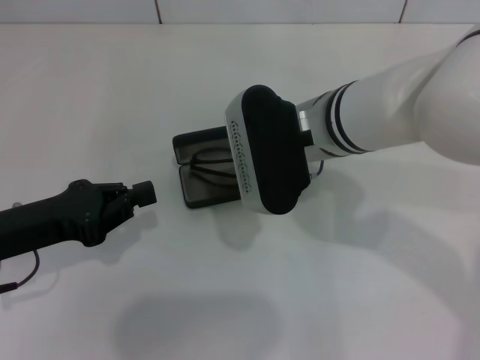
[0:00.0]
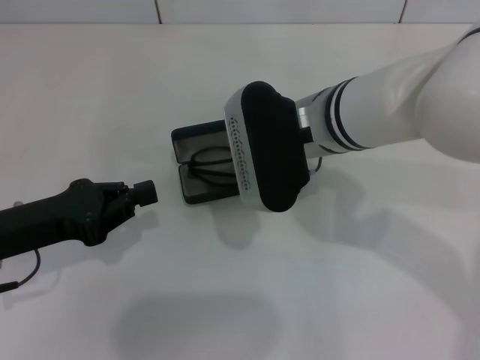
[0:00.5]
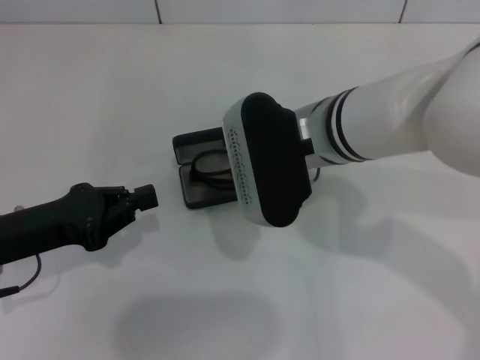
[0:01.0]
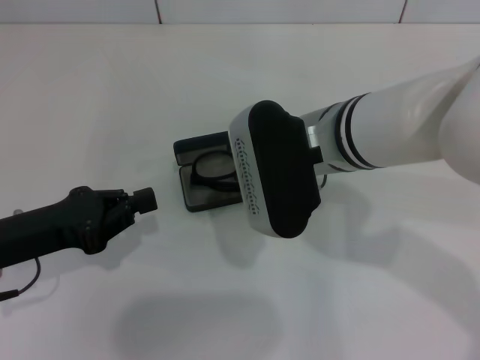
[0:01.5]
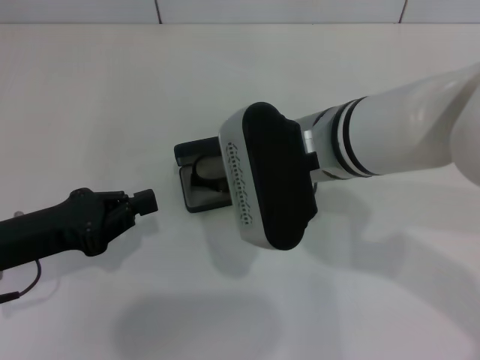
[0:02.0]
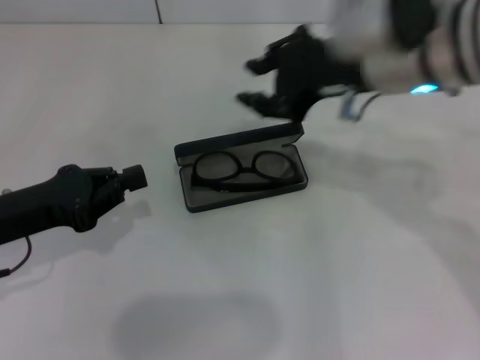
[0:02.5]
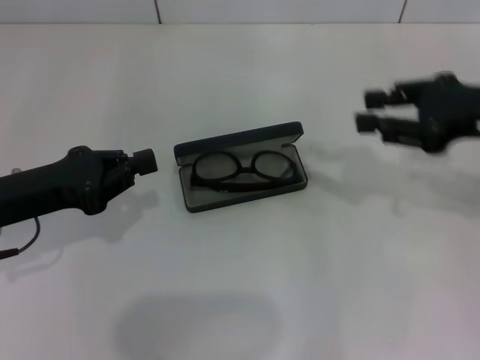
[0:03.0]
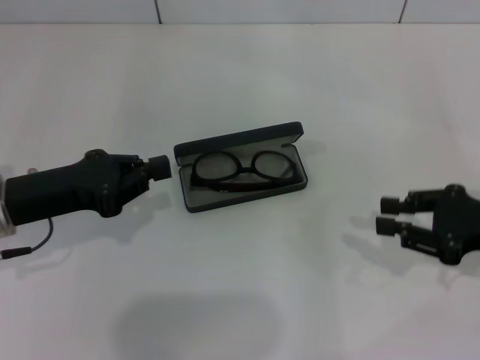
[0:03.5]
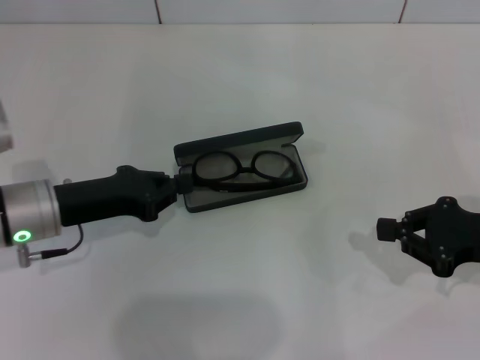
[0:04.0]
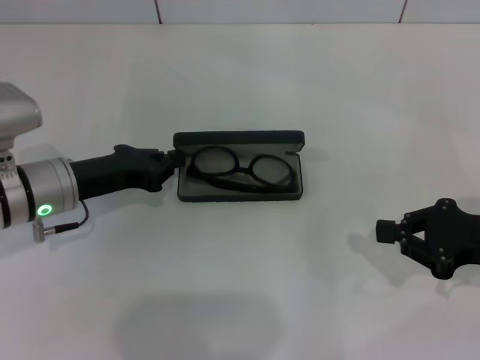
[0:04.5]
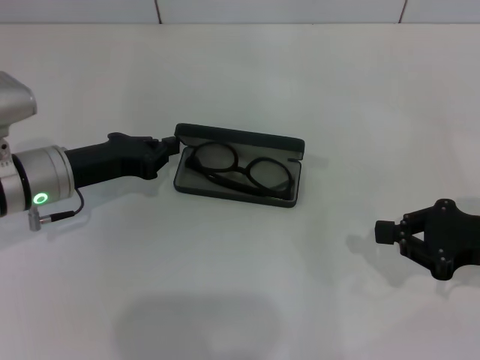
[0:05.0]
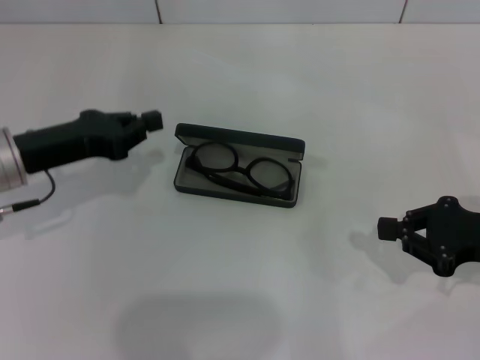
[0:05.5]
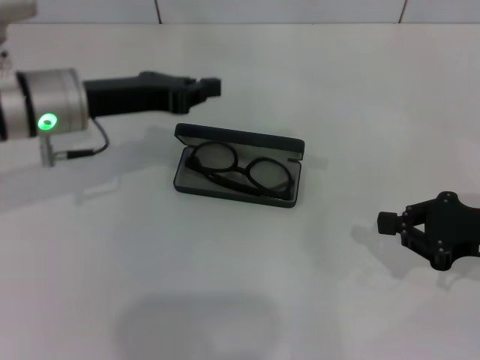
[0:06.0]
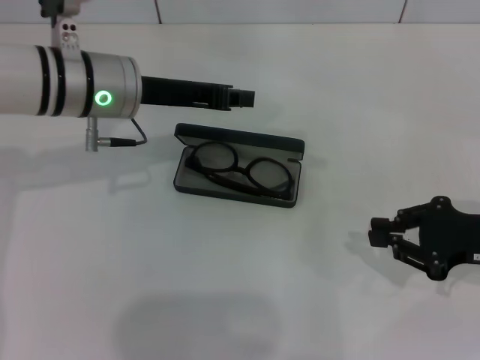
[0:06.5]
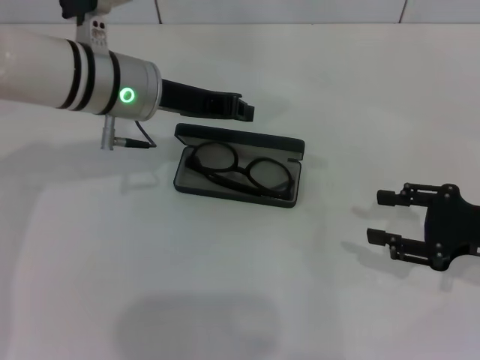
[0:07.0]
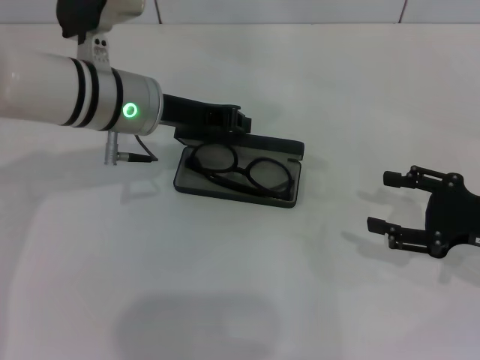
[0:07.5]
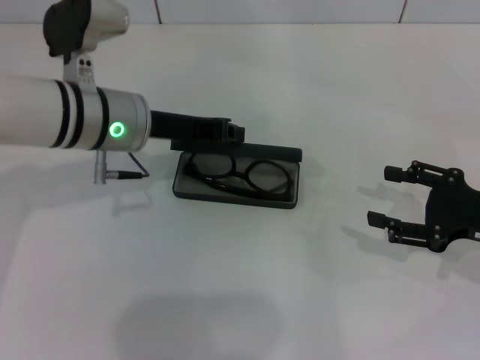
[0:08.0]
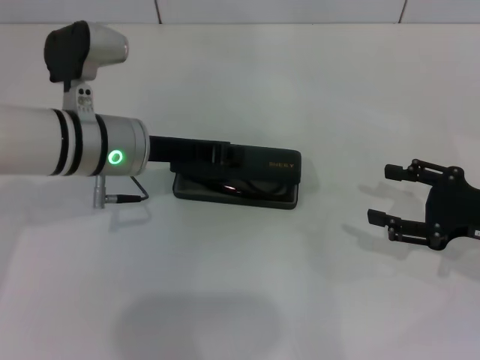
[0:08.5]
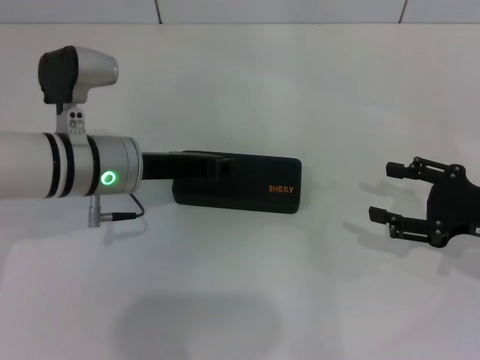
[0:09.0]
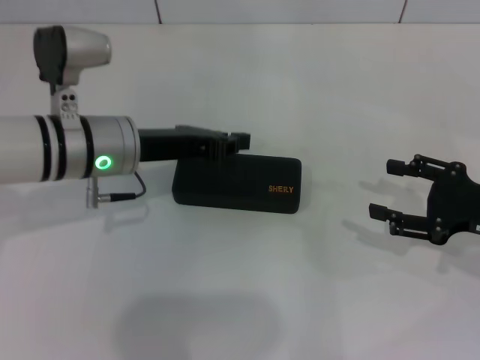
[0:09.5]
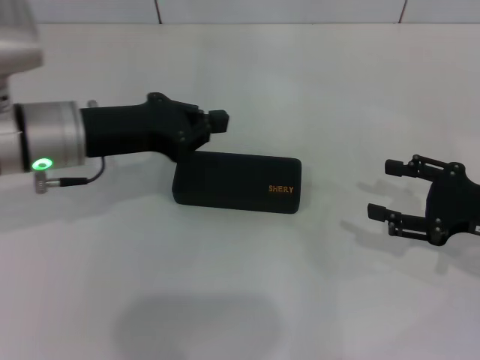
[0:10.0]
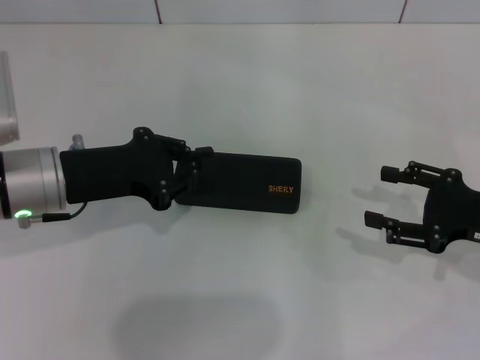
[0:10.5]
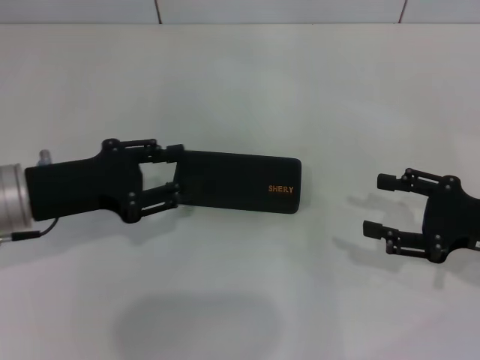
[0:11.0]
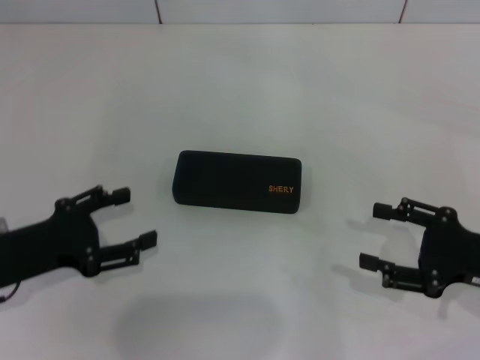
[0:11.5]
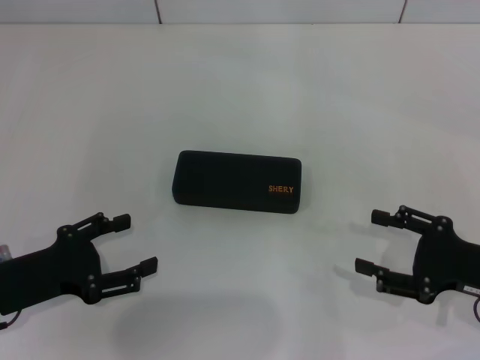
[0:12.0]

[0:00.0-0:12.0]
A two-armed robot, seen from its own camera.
Step, 0:00.0 to 0:02.0: Put the glasses into the case with your right hand.
Step, 0:02.5 to 0:09.0: Close the glasses case with your left hand.
0:00.0 to 0:02.0: The grippers make only small movements.
0:02.0 to 0:04.0: The right gripper shifts about 25 cm to the right, and closes its fingers. Meanwhile the left gripper travels forward by roughly 5 cm.
0:04.0 to 0:06.0: The left gripper goes approximately 10 cm upward and forward.
0:06.0 to 0:08.0: The right gripper opens up; the left gripper shifts roughly 5 cm to the right.
0:08.0 to 0:10.0: The left gripper moves to the left, about 5 cm.
0:10.0 to 0:12.0: The left gripper is displaced backward, downward and to the left by some 15 cm, and opens its fingers. Meanwhile the right gripper moves about 5 cm.

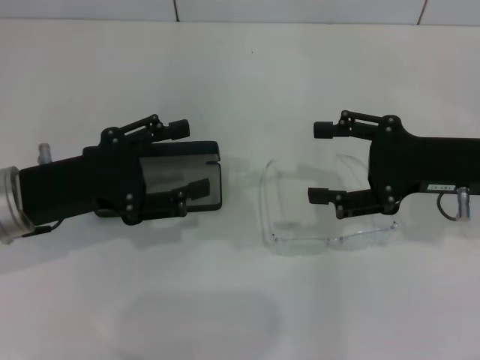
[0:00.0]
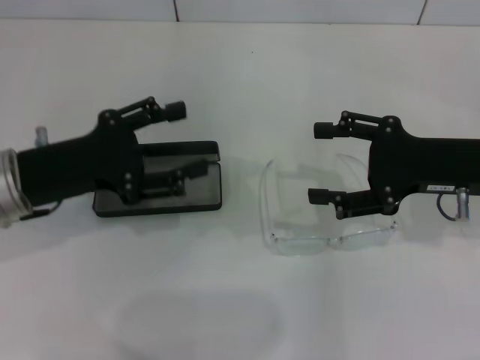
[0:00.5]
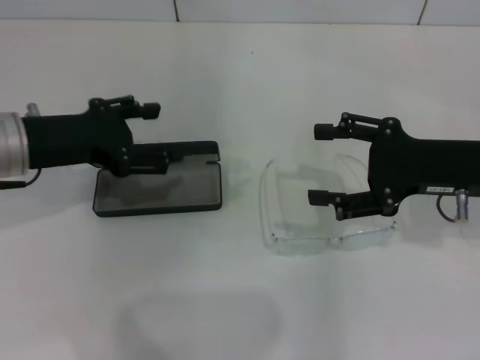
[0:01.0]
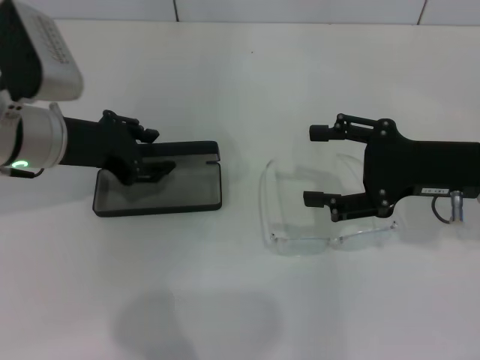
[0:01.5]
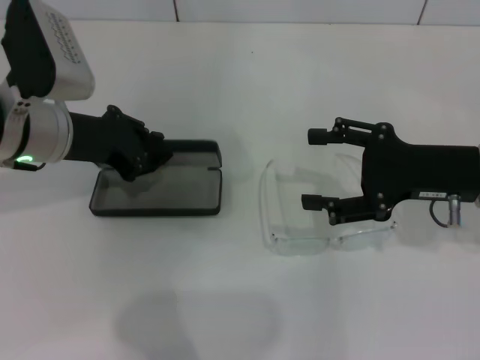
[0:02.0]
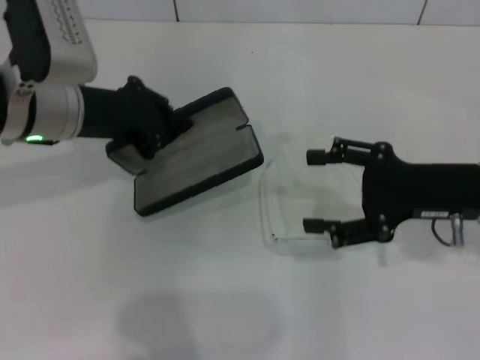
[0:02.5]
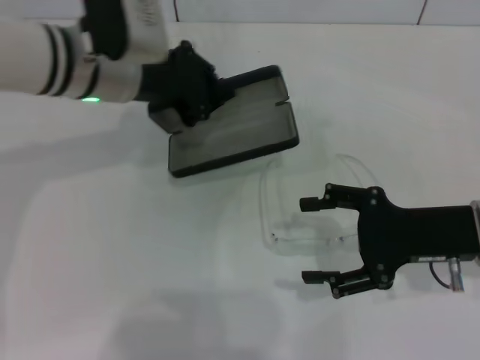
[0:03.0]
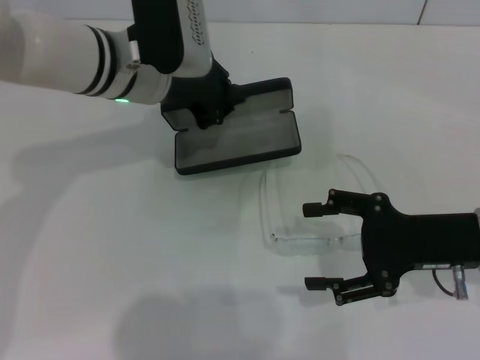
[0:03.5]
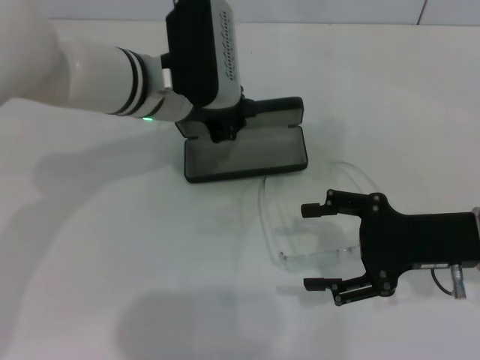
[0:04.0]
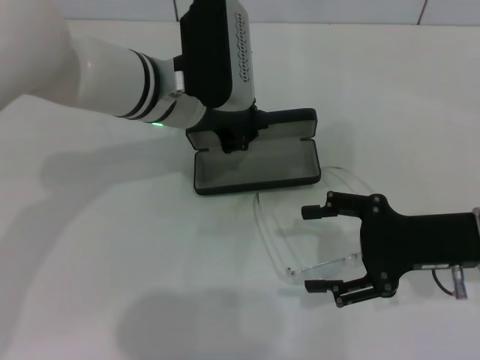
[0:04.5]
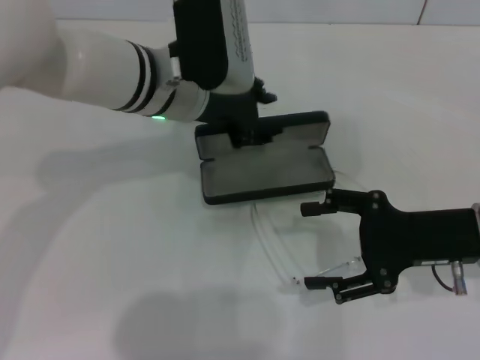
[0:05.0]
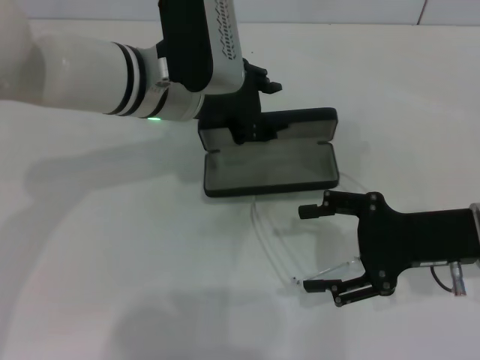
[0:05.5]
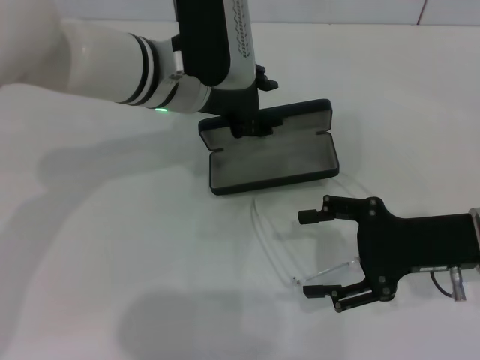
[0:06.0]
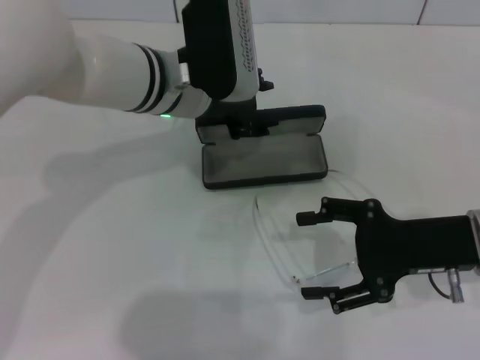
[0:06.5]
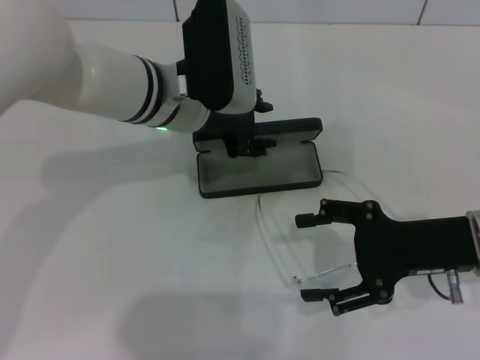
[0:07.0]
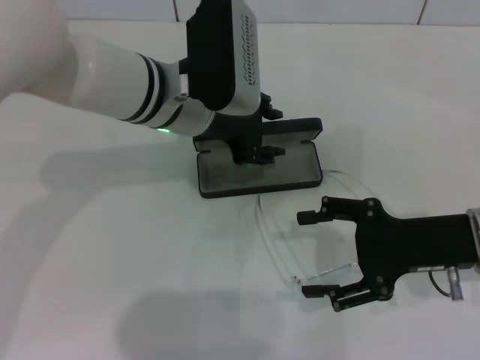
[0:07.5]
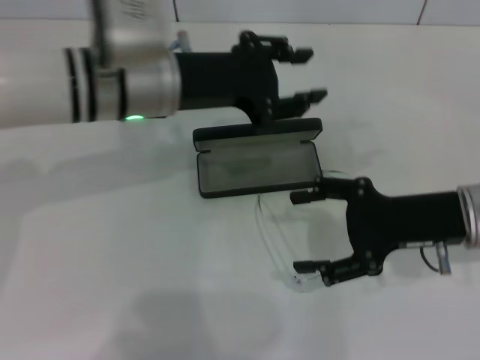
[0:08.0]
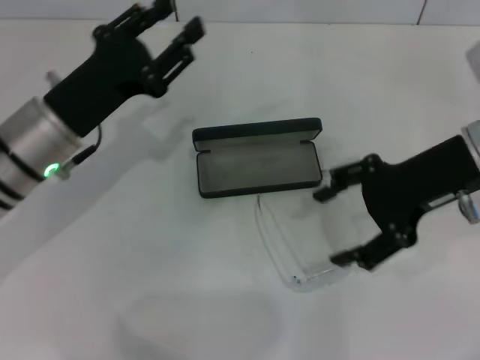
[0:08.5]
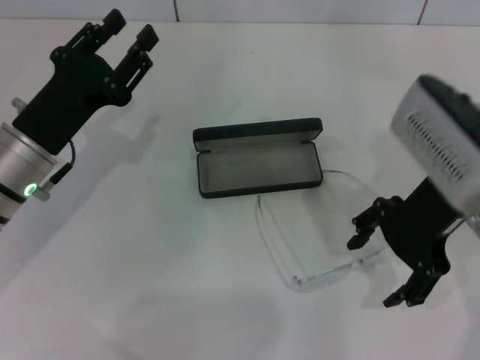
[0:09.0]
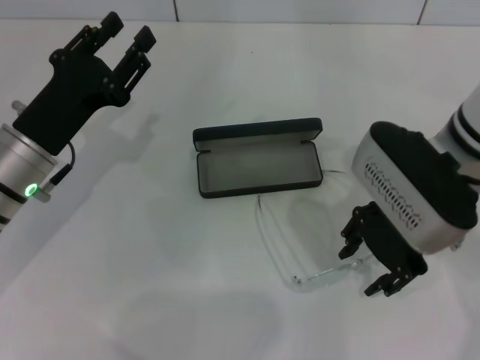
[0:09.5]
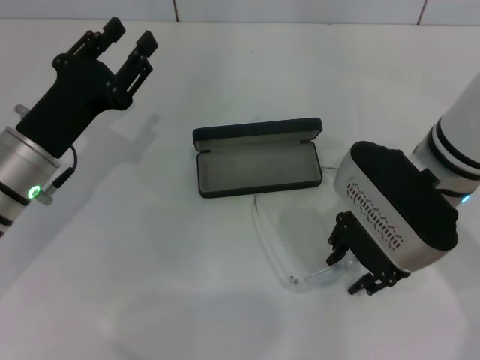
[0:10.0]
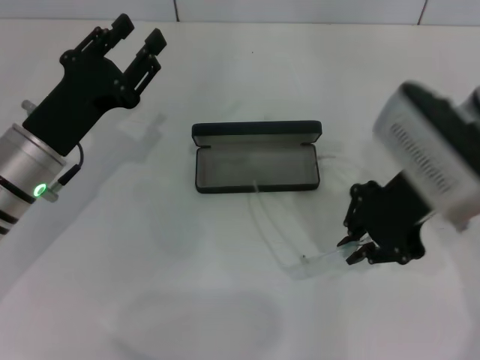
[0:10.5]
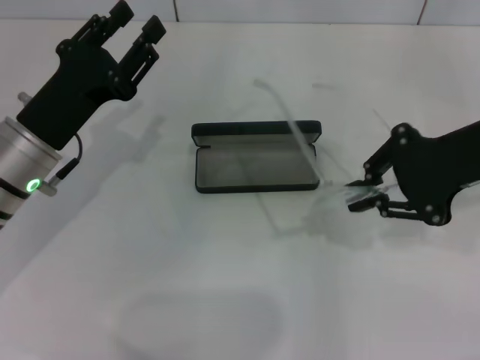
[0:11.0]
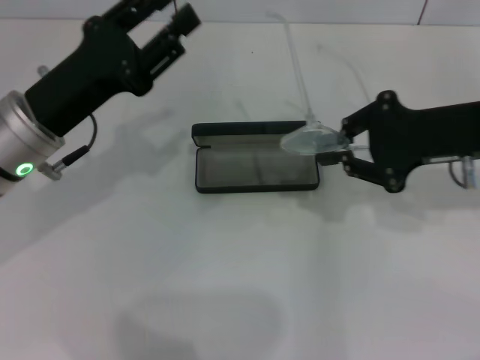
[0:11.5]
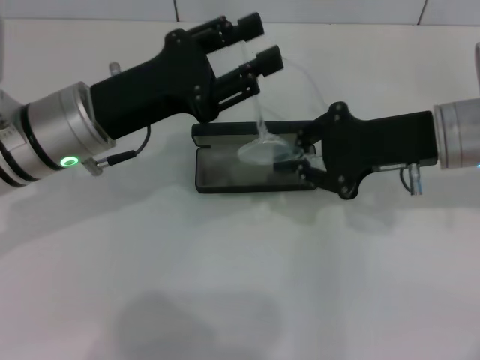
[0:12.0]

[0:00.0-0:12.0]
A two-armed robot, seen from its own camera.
Step, 0:00.0 to 0:01.5: Grab the glasses case with your left hand.
Step, 0:02.0 to 0:06.5: Place the glasses case in the center of the table with your left hand.
Step, 0:07.0 to 0:10.0: Grab the eyeglass frame with your right hand.
0:00.0 to 0:02.0: The left gripper travels forward by some 10 cm, and closes.
0:02.0 to 0:04.0: The left gripper moves to the right, roughly 10 cm.
0:04.0 to 0:06.0: The left gripper opens its fingers.
0:08.0 to 0:10.0: The right gripper travels to the left and upward by approximately 10 cm, and closes; the left gripper is displaced to the left, downward and backward by about 15 cm.
0:10.0 to 0:12.0: The left gripper shifts roughly 10 cm upward and to the right. Meanwhile the right gripper is displaced to the right by some 5 cm, and closes up.

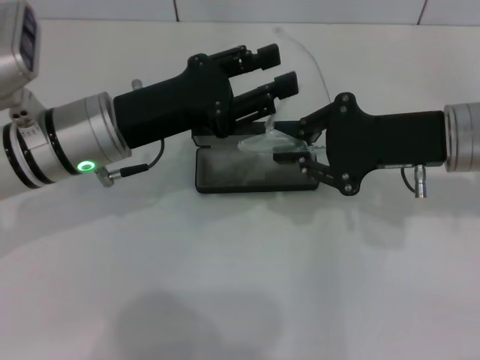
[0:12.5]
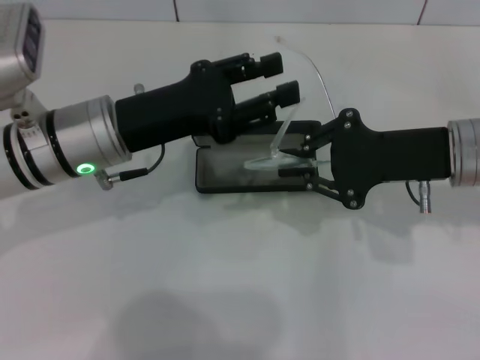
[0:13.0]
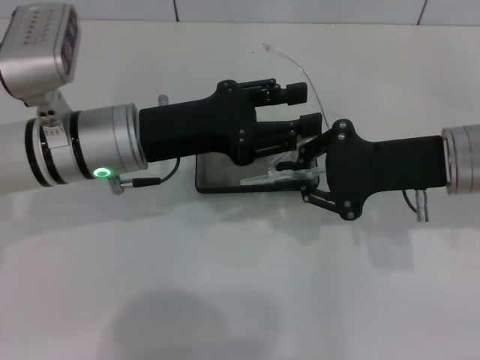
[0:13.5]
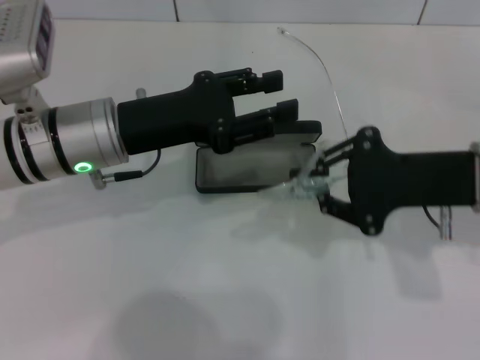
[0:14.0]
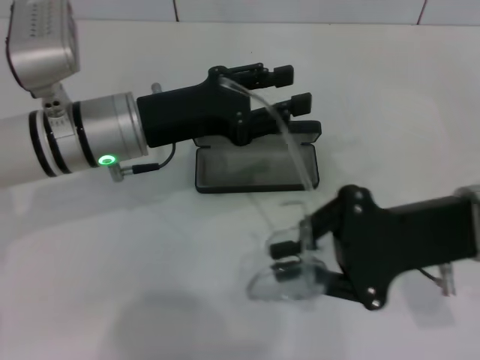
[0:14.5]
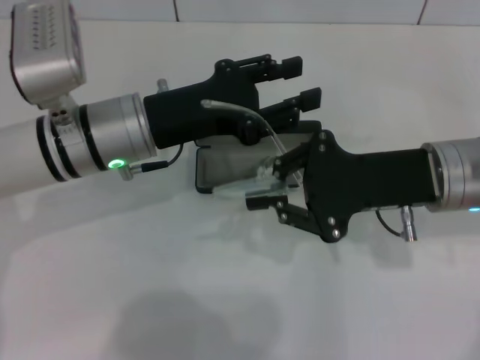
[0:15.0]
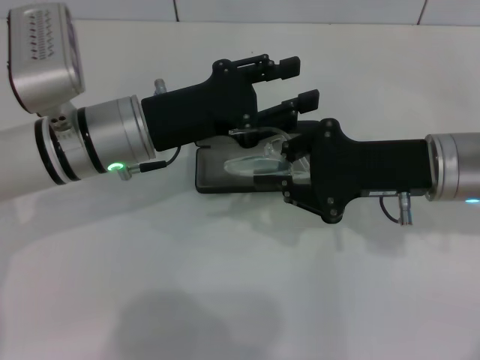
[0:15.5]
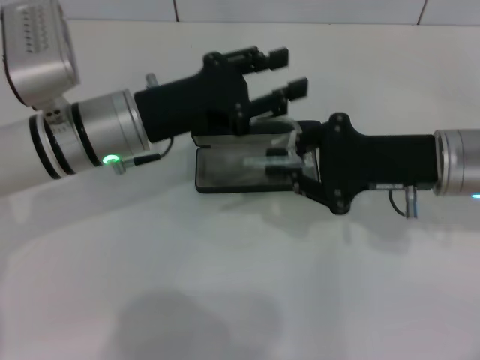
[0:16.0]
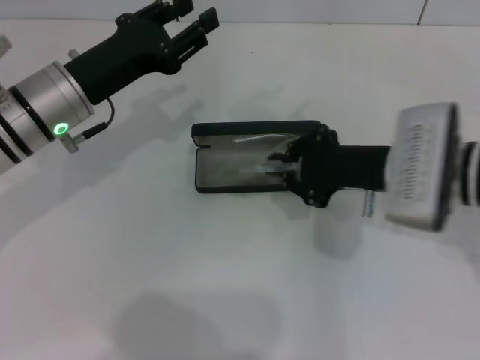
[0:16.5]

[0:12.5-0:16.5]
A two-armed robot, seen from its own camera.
Step, 0:12.5 to 0:15.5: Fold the frame with your left hand.
0:12.5 to 0:14.5: The right gripper is displaced backward by roughly 5 cm.
0:14.5 to 0:16.5: The left gripper changes place by some 5 cm; the right gripper travels forward by roughly 5 cm.
